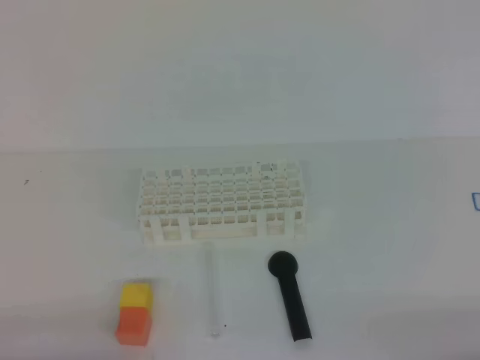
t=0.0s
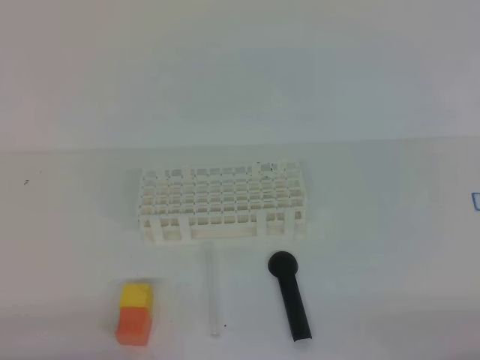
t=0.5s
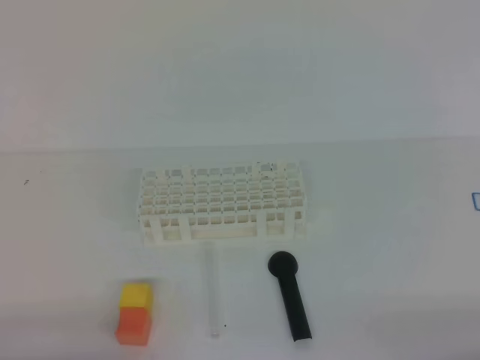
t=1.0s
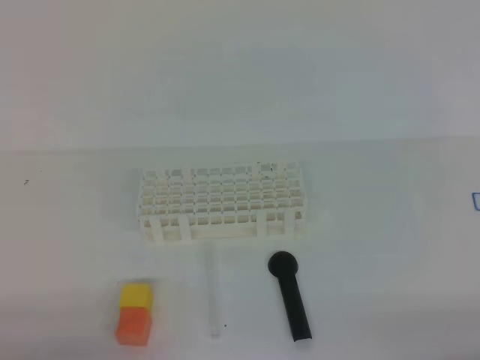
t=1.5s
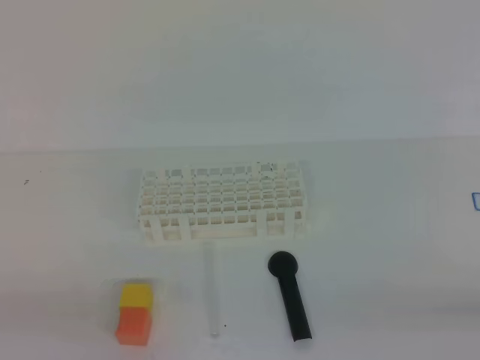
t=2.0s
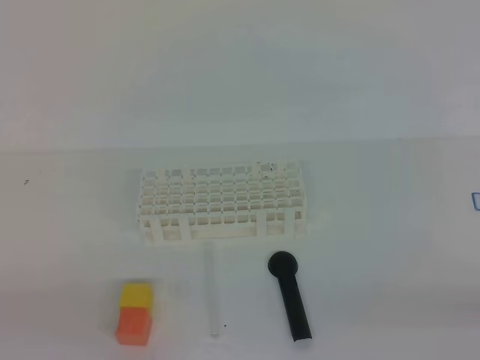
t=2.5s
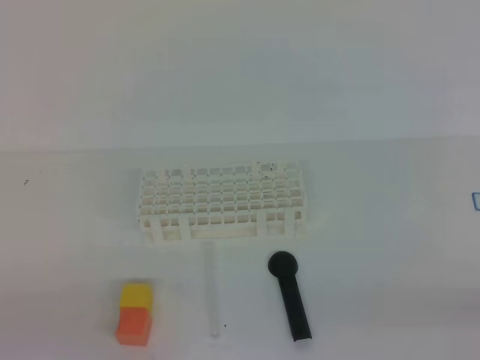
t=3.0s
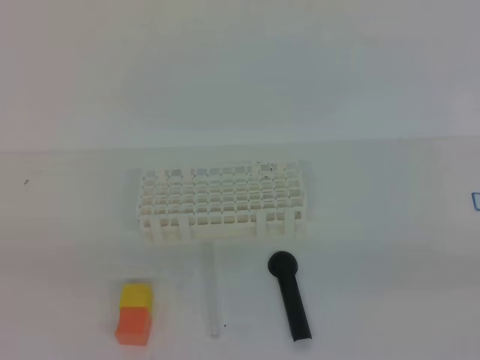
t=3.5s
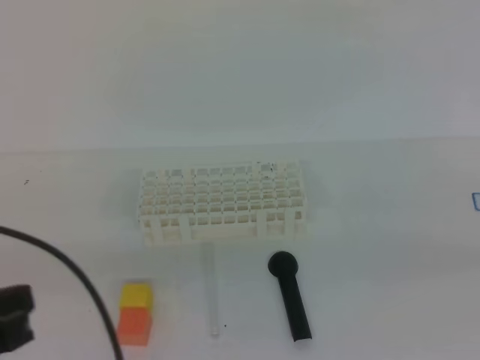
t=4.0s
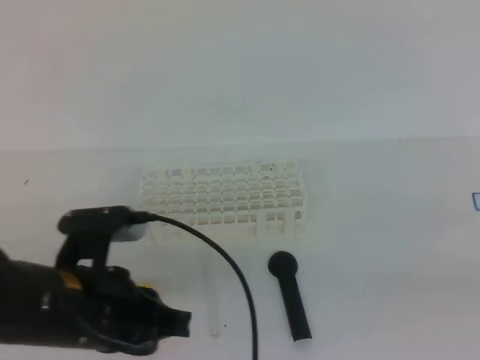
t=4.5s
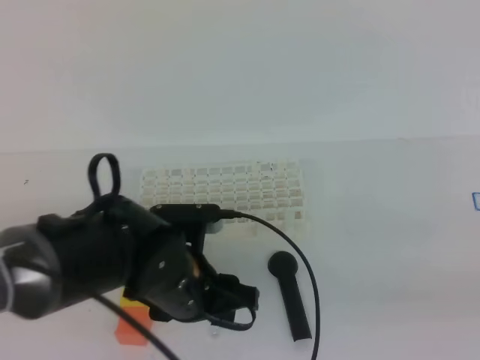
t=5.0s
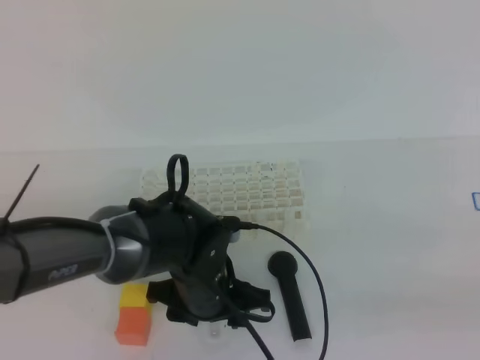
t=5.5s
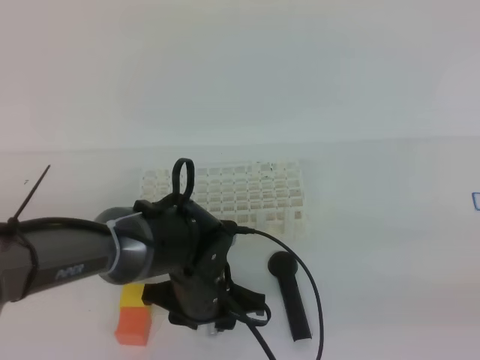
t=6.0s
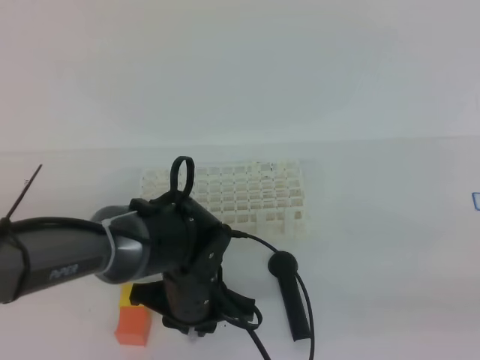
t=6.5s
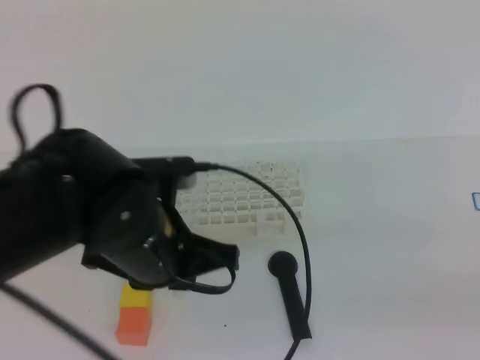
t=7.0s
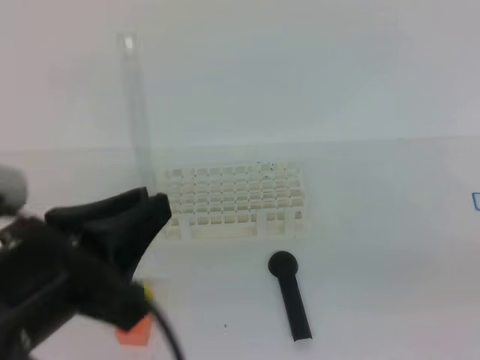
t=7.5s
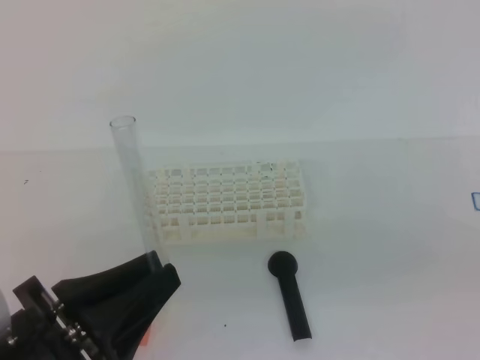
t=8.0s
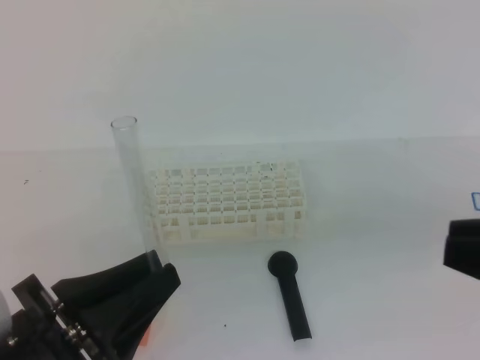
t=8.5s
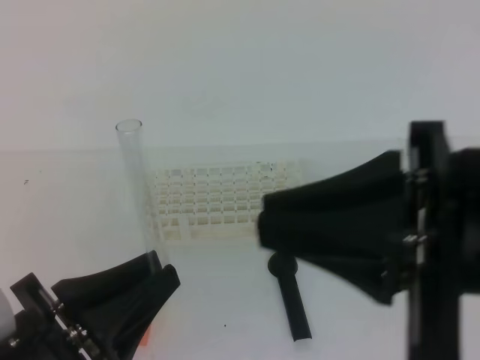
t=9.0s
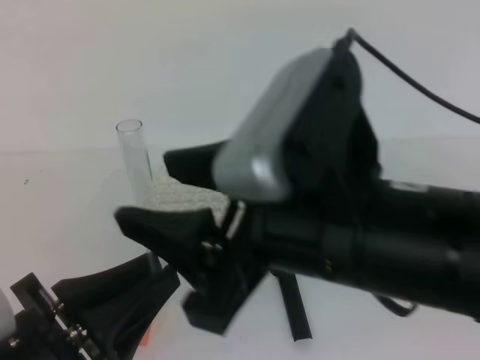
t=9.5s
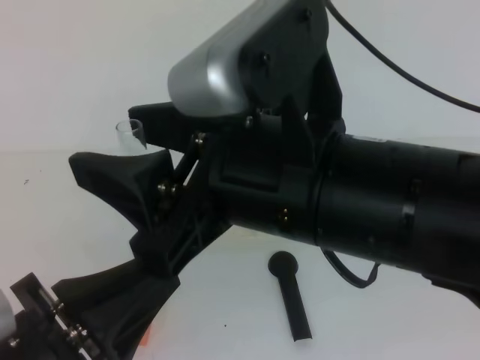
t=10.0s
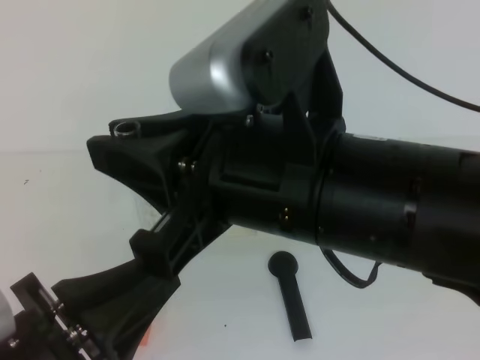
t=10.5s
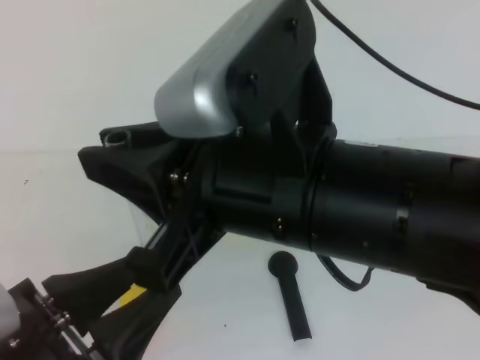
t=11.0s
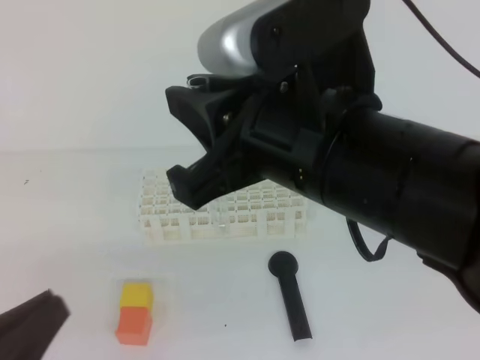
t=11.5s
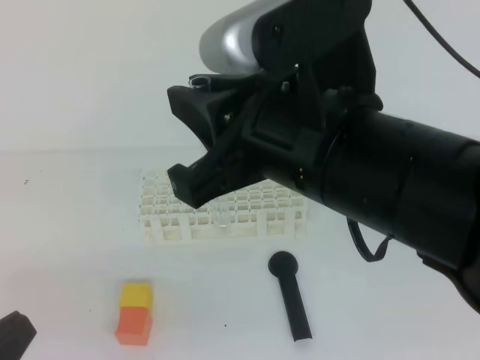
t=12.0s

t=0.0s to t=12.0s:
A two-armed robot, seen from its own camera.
t=2.0s to t=4.0s: The left gripper moves upward and forward, some 10 cm.
t=4.0s to t=6.0s: The left gripper shifts about 30 cm to the right, downward and forward, and opens.
t=6.0s to t=8.0s: The left gripper heads backward, upward and to the left, covering about 25 cm, and closes. The right gripper moves upward, some 5 cm.
t=8.0s to t=10.0s: The right gripper shifts approximately 25 cm to the left and forward, and opens up.
t=10.0s to t=12.0s: The left gripper heads to the left, covering roughly 10 cm, and opens, then closes once more. The right gripper closes its fingers.

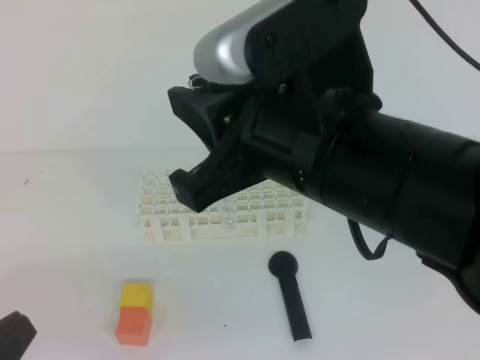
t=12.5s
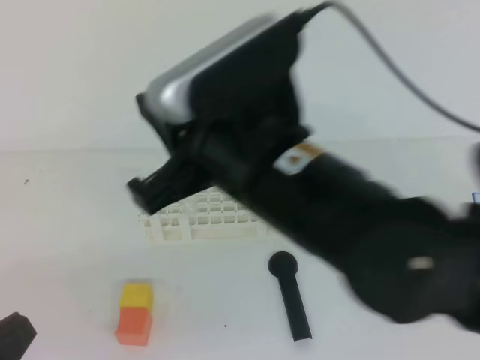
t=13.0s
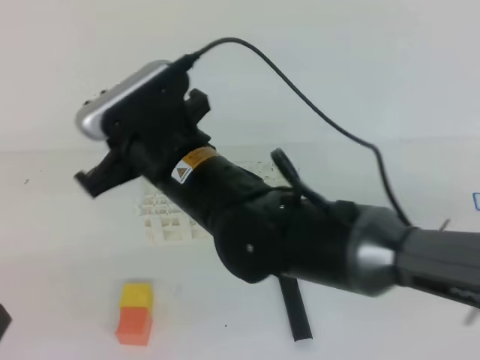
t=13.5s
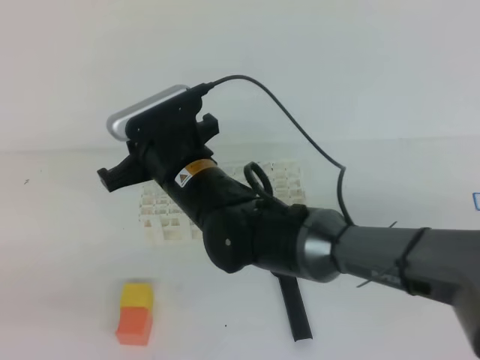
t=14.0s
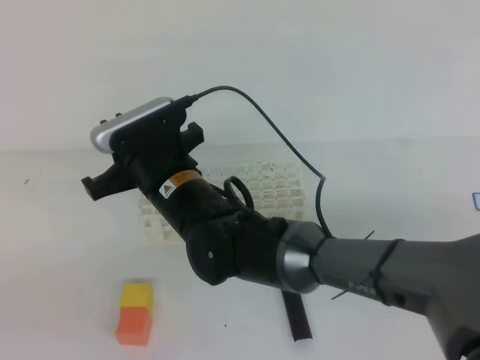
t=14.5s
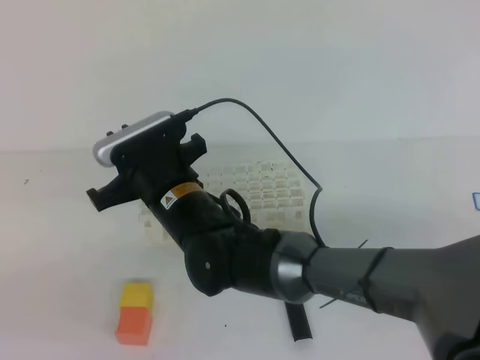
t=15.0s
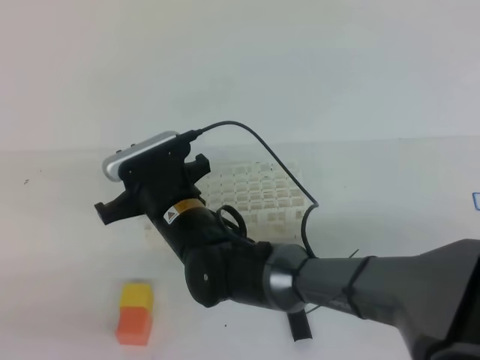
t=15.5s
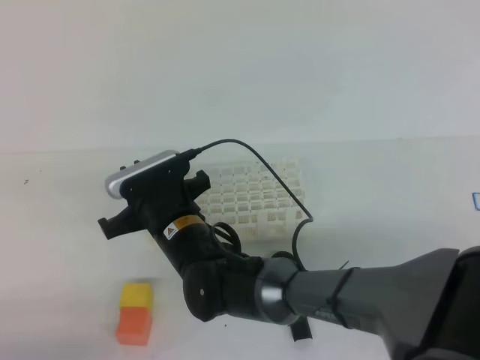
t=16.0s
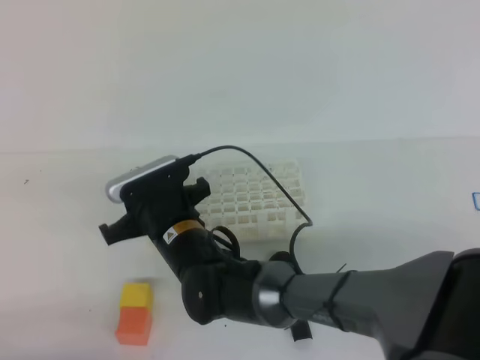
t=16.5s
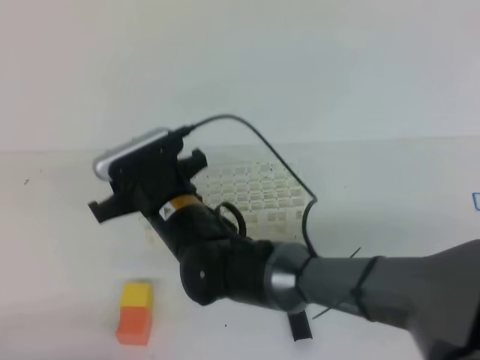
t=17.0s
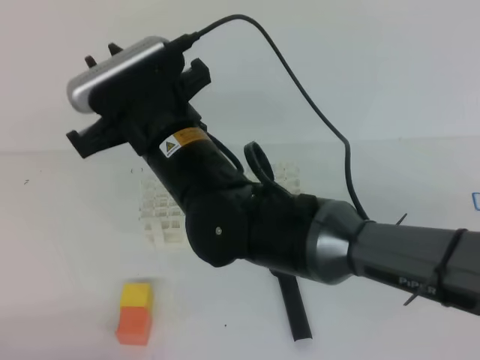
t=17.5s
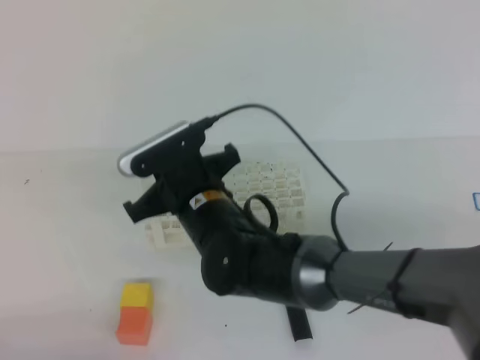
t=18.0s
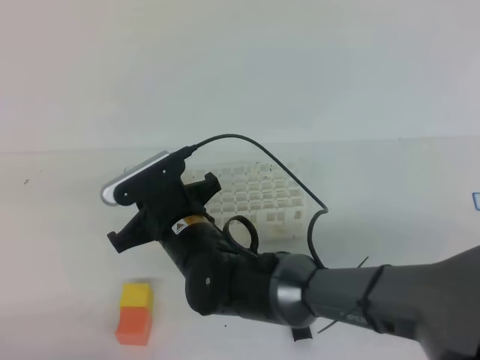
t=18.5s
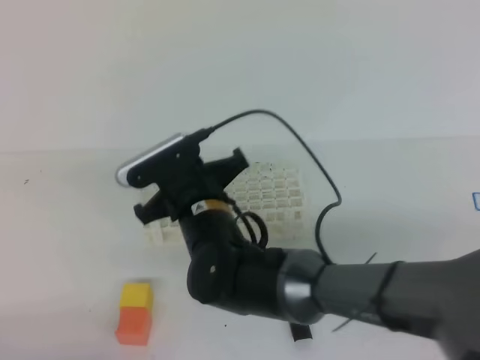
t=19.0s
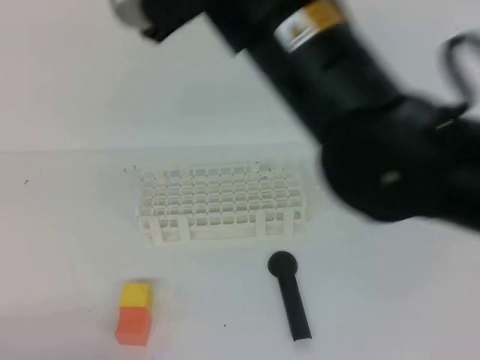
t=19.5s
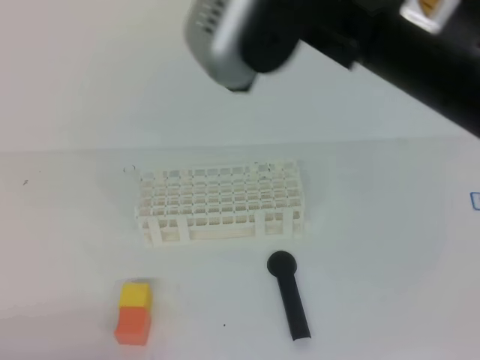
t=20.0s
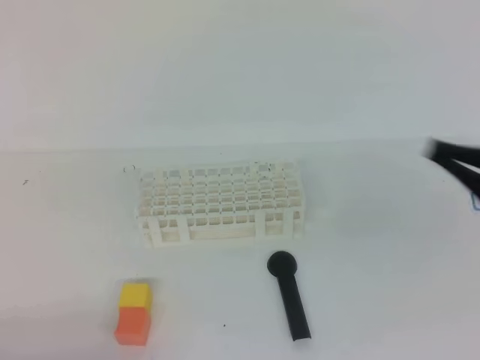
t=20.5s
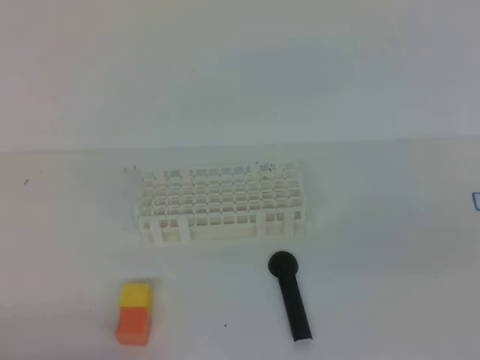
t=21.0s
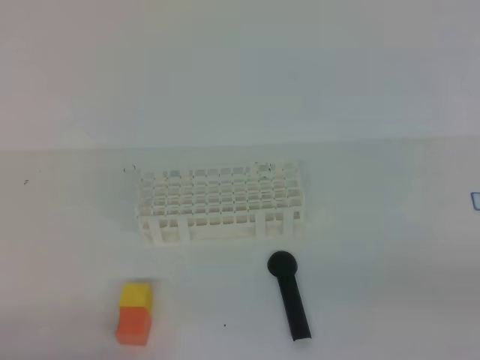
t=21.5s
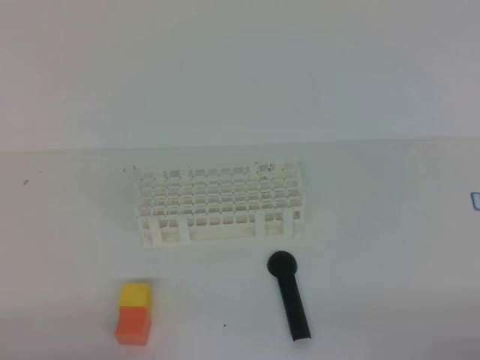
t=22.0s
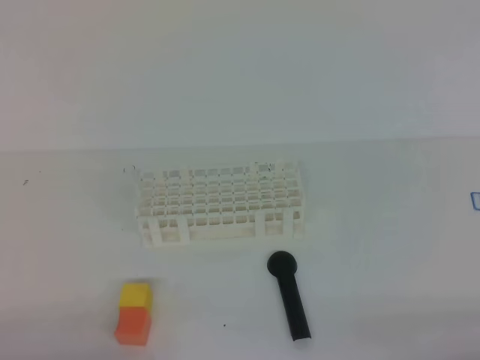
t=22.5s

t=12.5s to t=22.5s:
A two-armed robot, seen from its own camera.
t=12.5s to t=14.5s: The right gripper moves downward, to the left and forward, approximately 25 cm.
t=14.5s to t=16.5s: The grippers both shift downward by roughly 10 cm.
t=16.5s to t=18.5s: The right gripper goes upward and returns, some 15 cm each way, and closes its fingers.
t=18.5s to t=20.5s: The right gripper goes approximately 40 cm to the right, upward and backward.
t=20.5s to t=22.5s: The right gripper travels downward, to the right and backward by about 25 cm.
